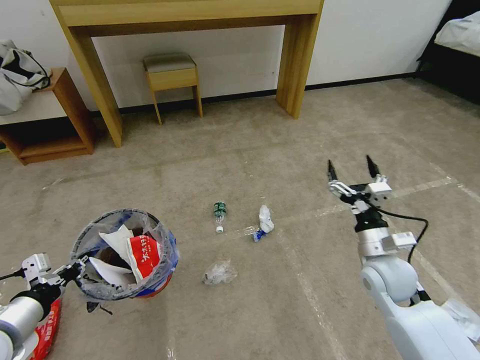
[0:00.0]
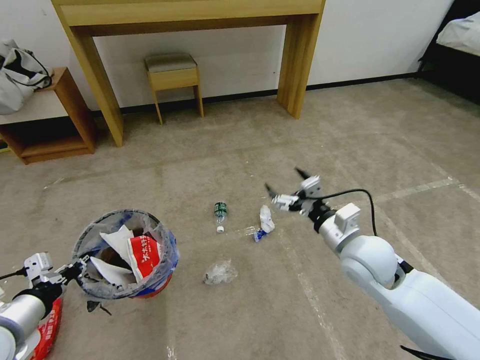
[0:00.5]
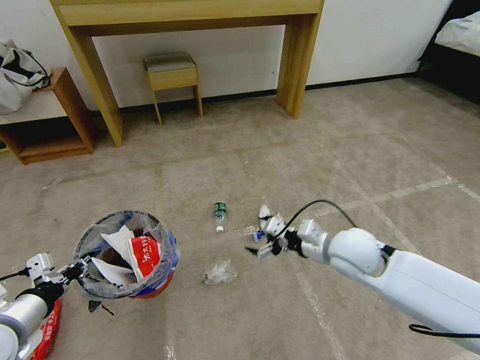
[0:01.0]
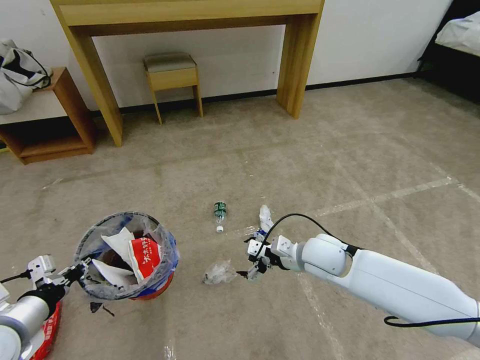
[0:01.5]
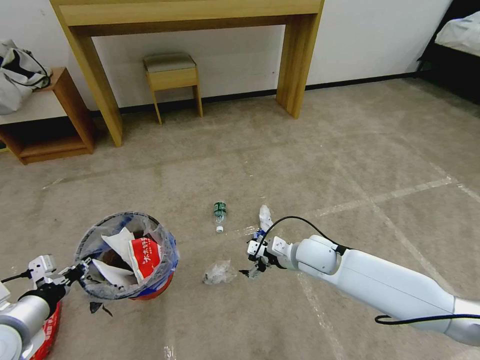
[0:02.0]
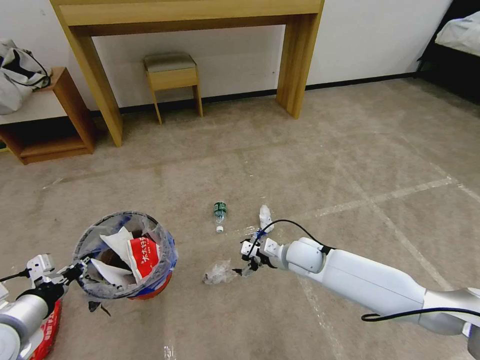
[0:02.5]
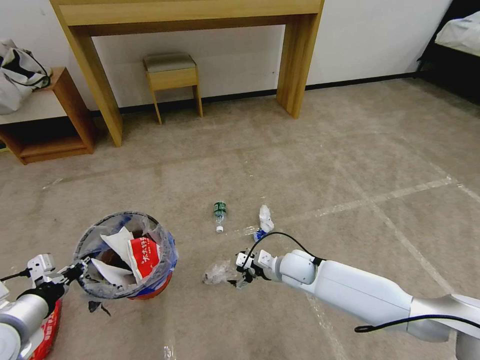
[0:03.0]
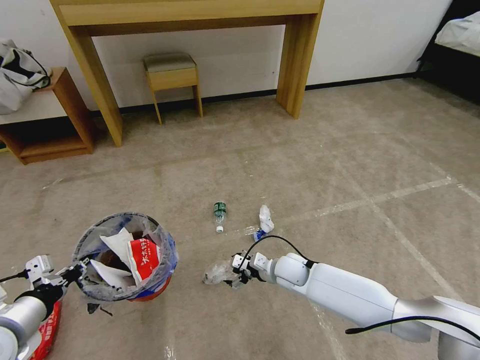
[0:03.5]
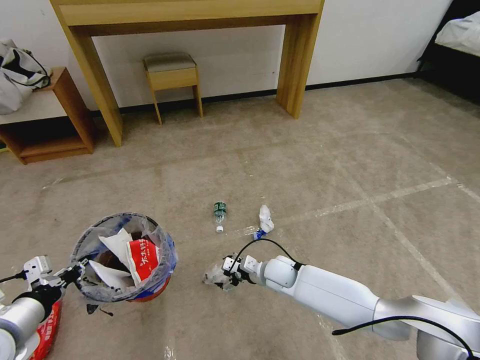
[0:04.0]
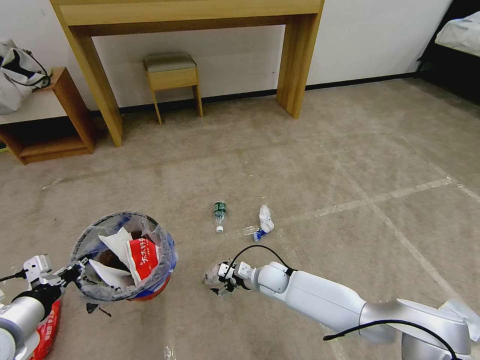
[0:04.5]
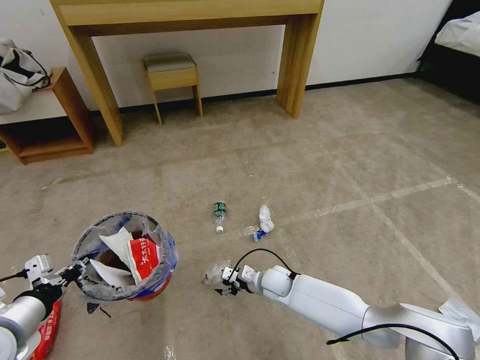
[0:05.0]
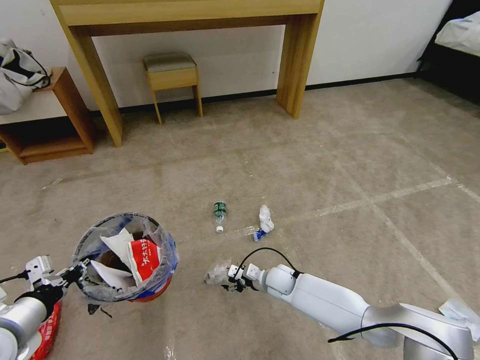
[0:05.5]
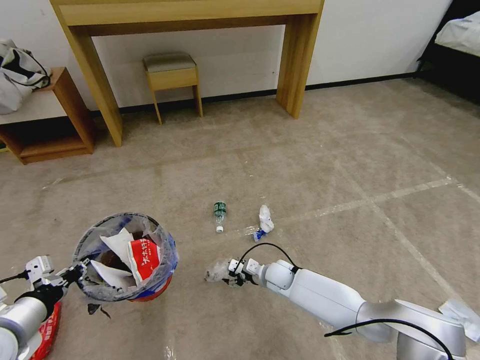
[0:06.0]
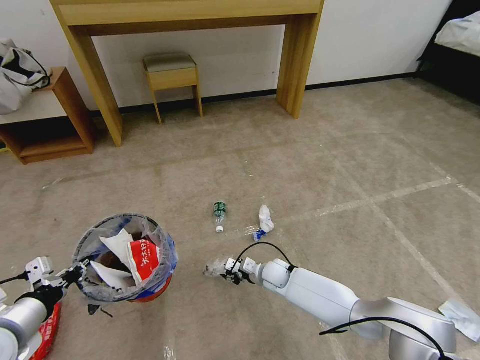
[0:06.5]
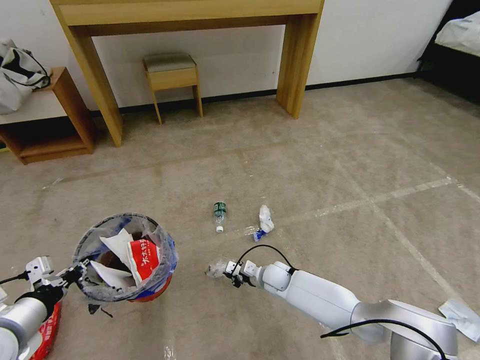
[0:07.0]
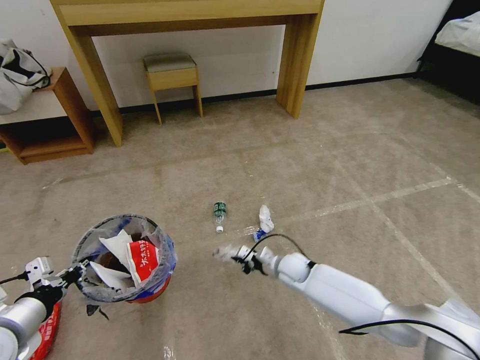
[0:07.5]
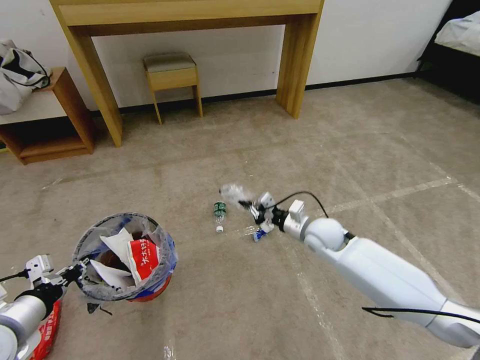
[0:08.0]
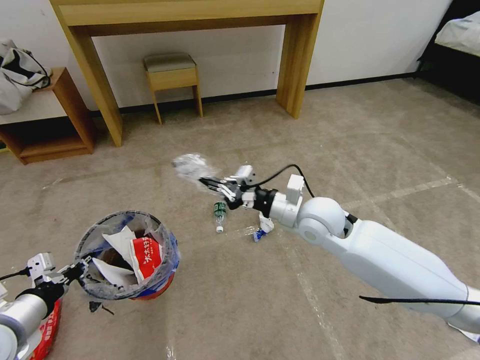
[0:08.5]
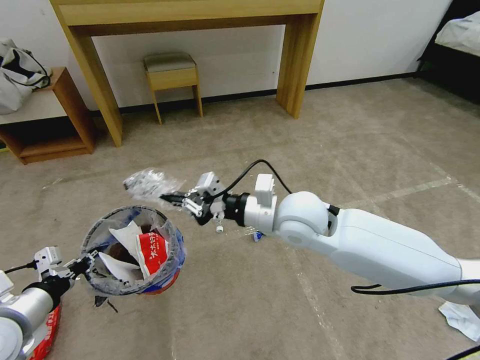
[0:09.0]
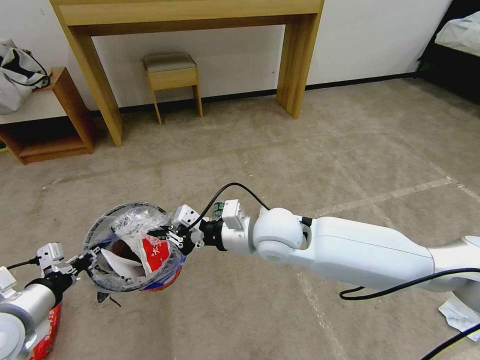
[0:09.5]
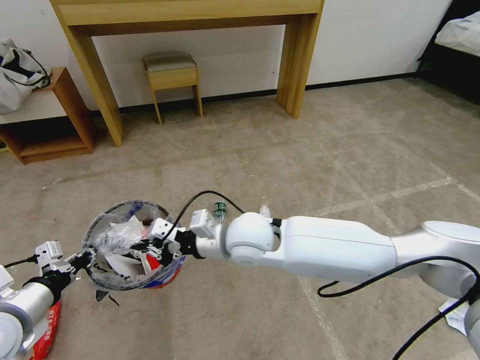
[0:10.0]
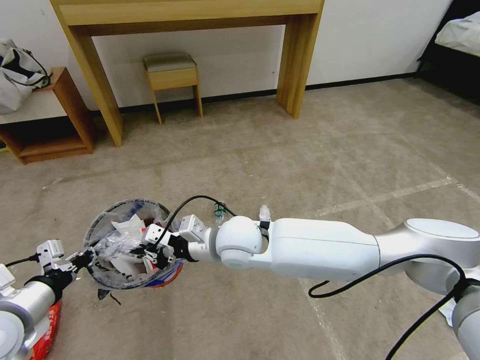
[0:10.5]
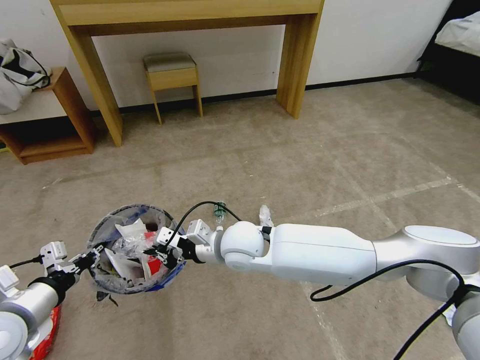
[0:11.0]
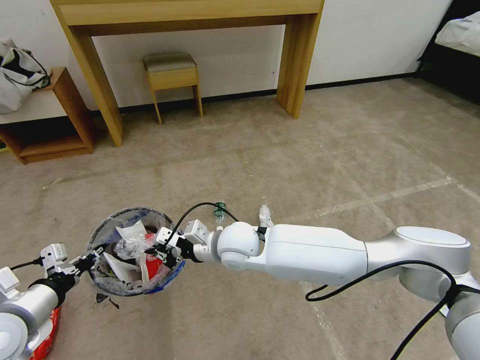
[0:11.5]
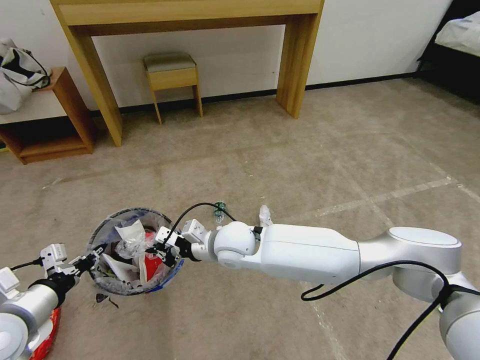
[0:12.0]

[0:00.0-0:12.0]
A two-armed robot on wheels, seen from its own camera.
Task of the whole recording: Pick up the trash bin and place the garbage on the floor into it.
0:00.0 to 0:02.0: The right gripper heads to the left and forward, covering some 15 cm.
0:02.0 to 0:04.0: The right gripper shifts some 15 cm downward and to the left.
0:04.0 to 0:06.0: The right gripper changes place by roughly 5 cm.
0:06.0 to 0:08.0: The right gripper heads upward and to the right, covering about 20 cm, and closes up.
0:08.0 to 0:10.0: The right gripper goes roughly 25 cm to the left, upward and backward.
0:10.0 to 0:12.0: The right gripper shifts some 5 cm downward.

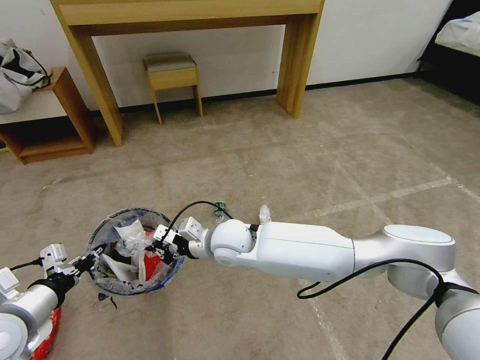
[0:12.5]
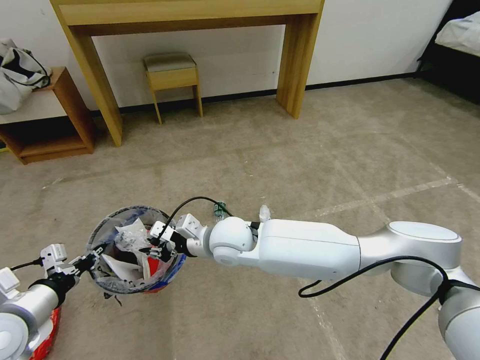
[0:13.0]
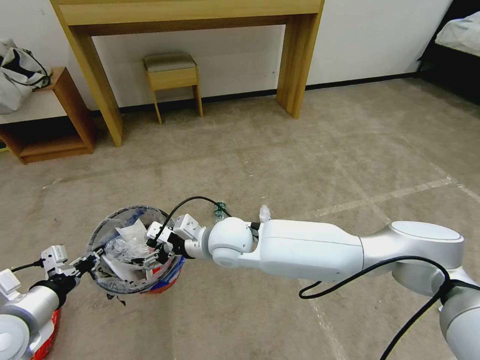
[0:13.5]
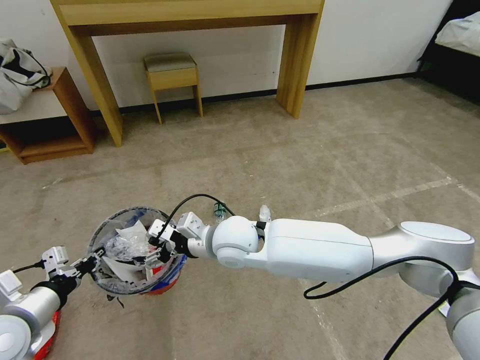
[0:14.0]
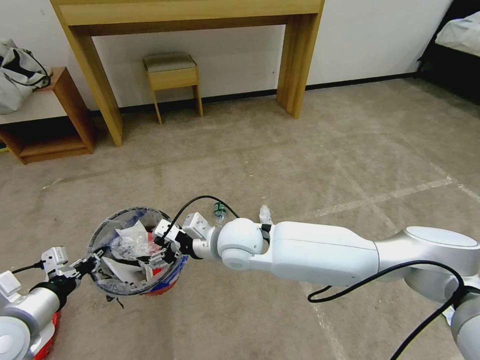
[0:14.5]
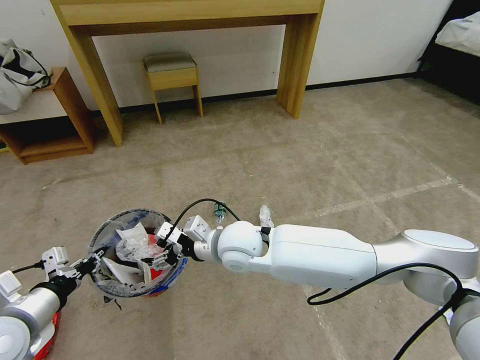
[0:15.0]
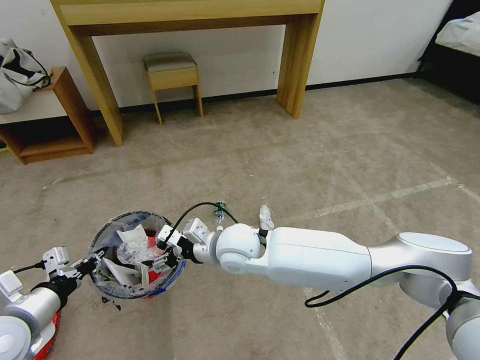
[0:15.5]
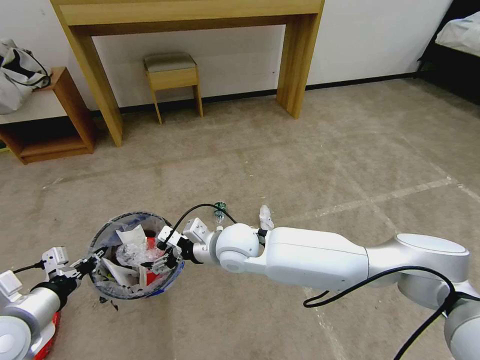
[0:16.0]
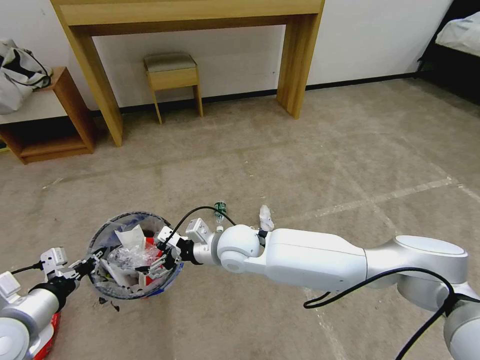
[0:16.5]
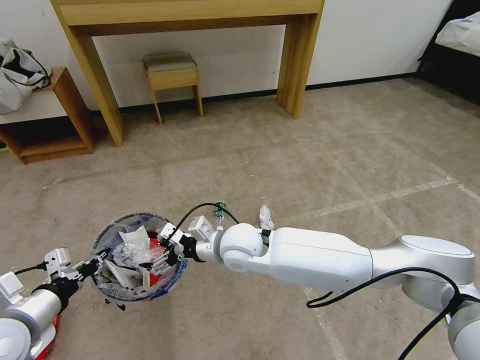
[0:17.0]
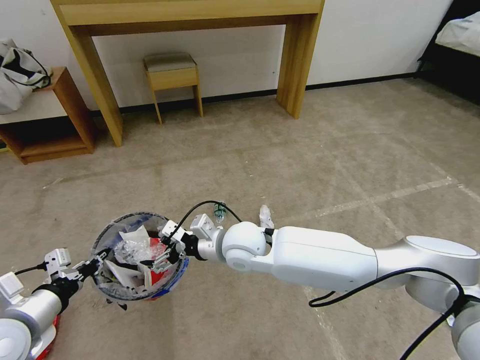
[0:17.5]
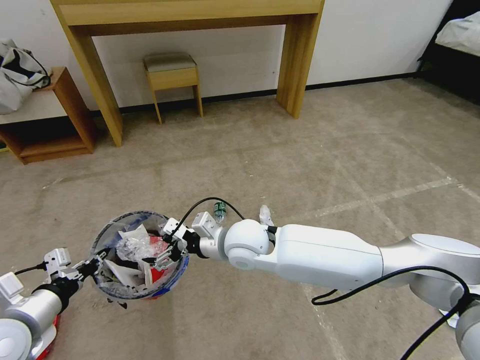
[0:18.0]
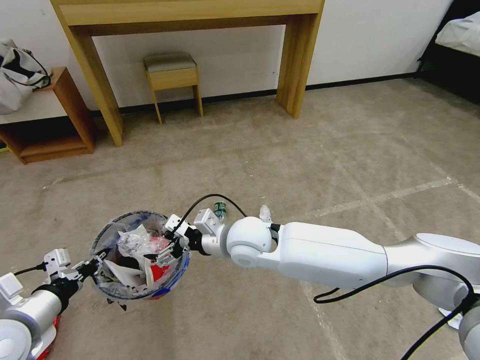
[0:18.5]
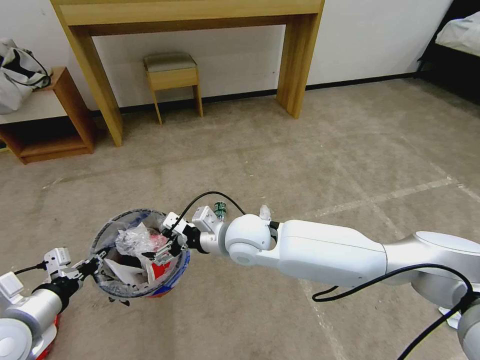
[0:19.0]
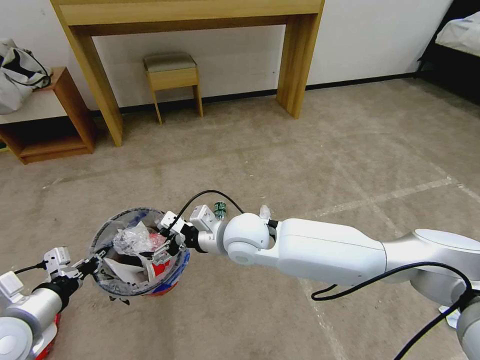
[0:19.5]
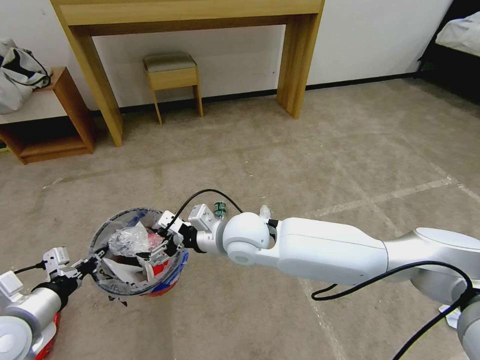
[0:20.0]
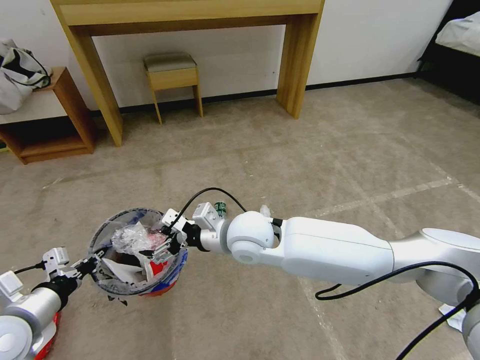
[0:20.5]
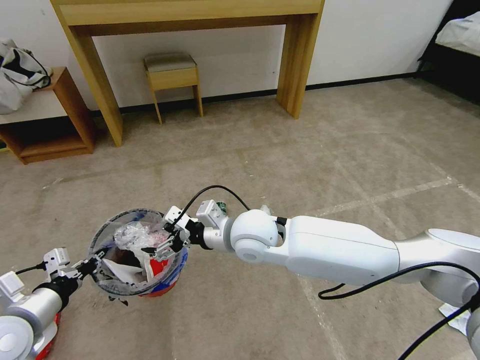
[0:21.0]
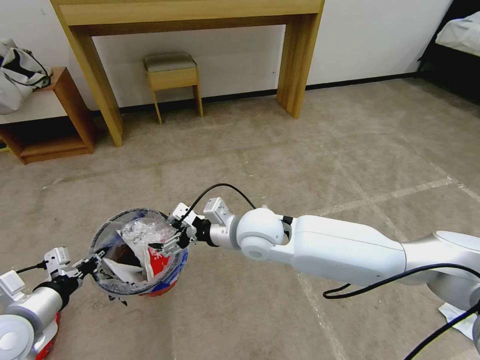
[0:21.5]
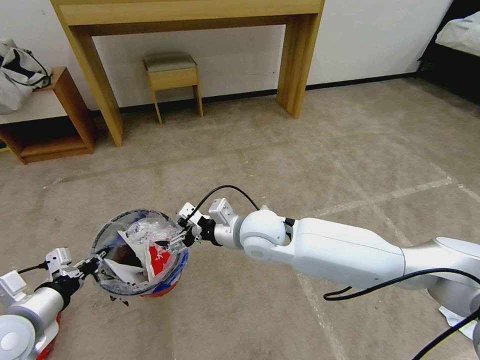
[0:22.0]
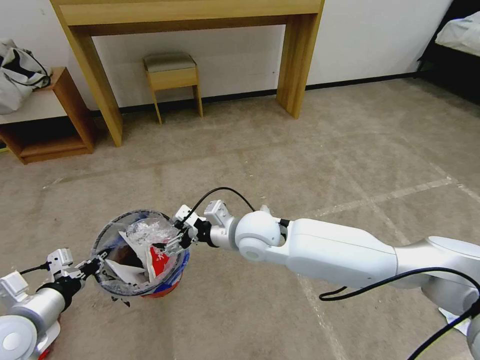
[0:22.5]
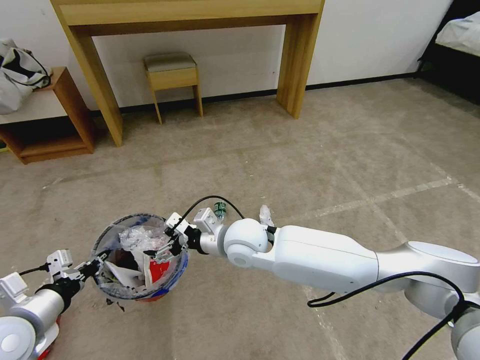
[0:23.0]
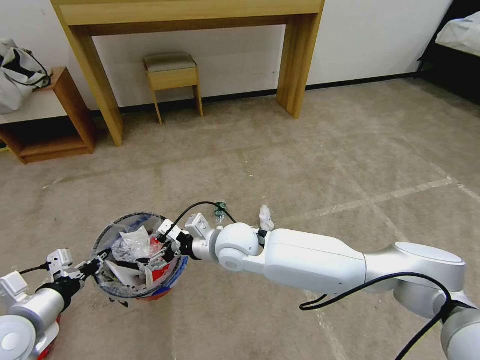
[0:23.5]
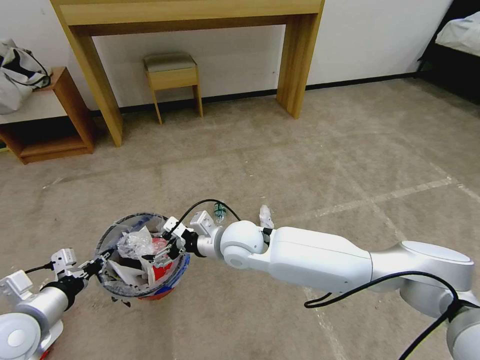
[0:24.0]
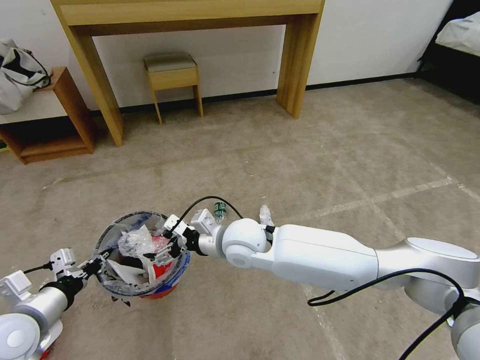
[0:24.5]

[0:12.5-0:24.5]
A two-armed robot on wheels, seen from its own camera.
Task of the whole recording: Pick up the trash bin and place the garbage on the floor into it.
0:12.5 to 0:14.5: The right gripper shifts by approximately 5 cm, and opens.
0:14.5 to 0:24.5: The grippers stay close to where they were, moving slightly.

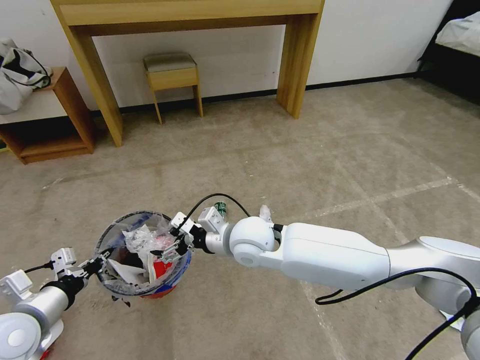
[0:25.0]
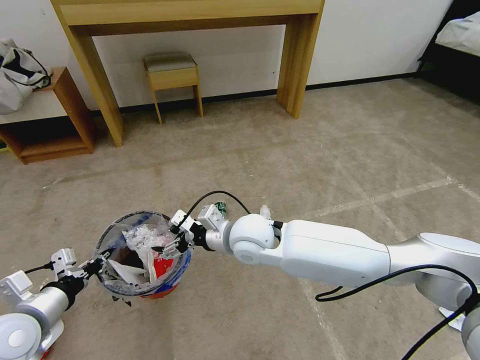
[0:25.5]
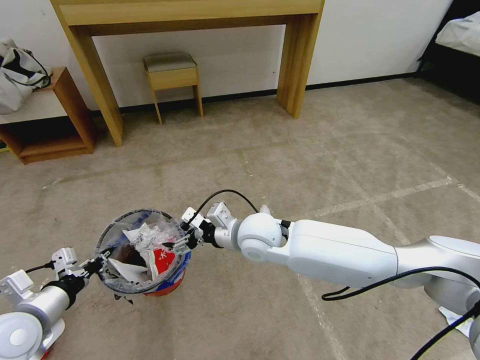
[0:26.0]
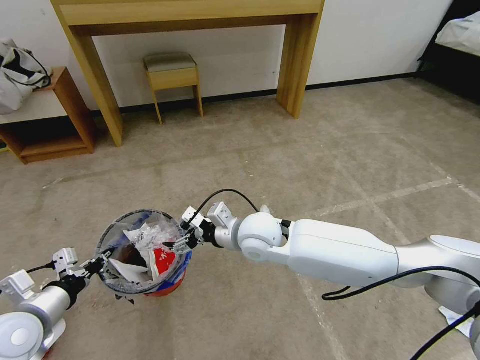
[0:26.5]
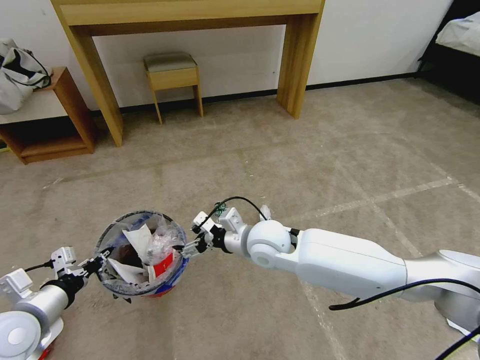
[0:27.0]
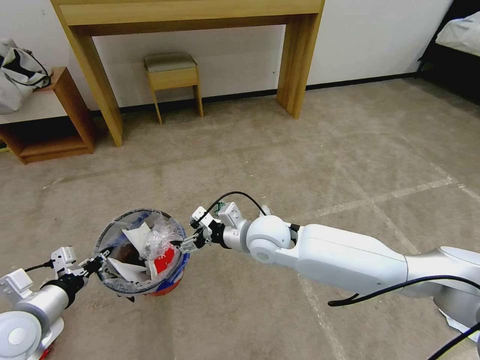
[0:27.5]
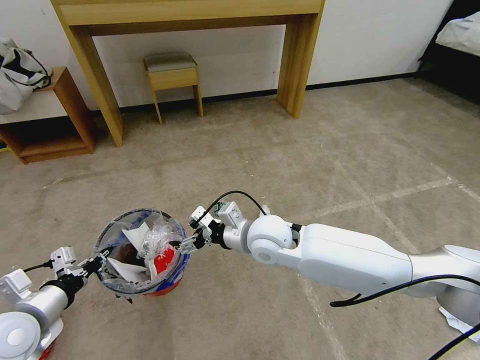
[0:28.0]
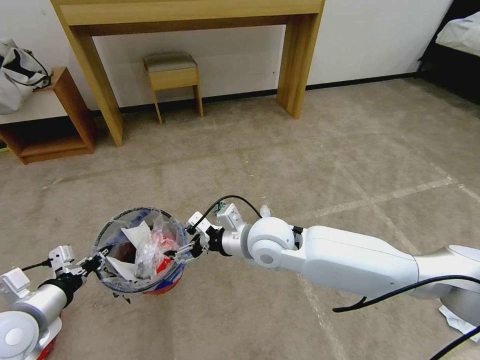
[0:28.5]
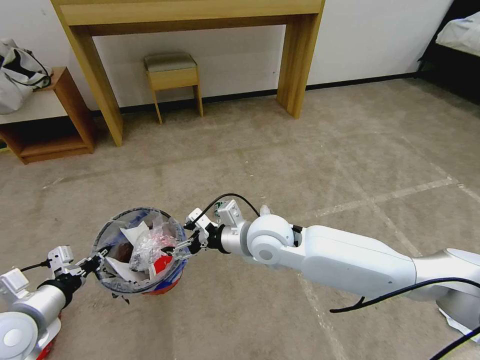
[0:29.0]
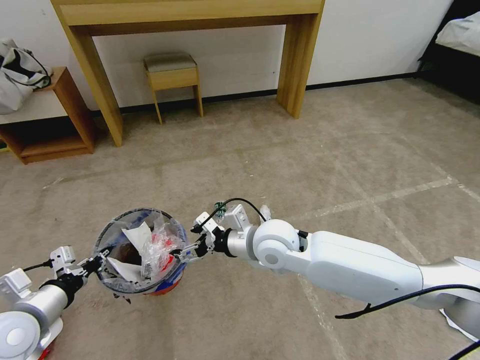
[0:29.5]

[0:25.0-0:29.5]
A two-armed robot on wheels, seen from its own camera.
Task of the whole recording: Pick up the trash bin and place the garbage on the floor into it.
0:25.0 to 0:29.5: There are only small adjustments of the grippers.
